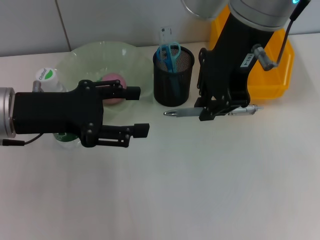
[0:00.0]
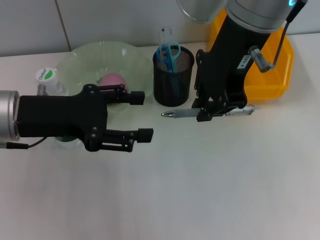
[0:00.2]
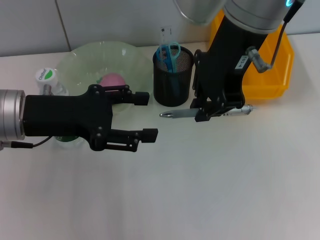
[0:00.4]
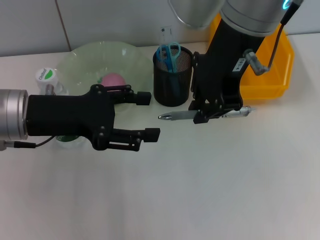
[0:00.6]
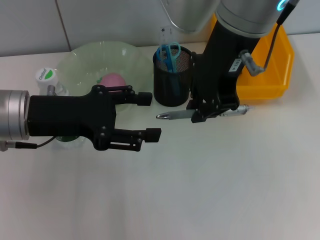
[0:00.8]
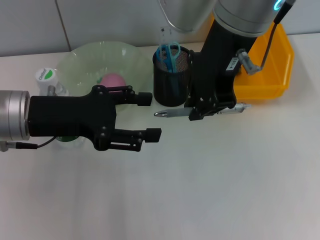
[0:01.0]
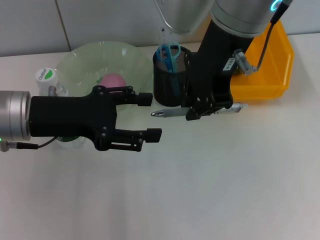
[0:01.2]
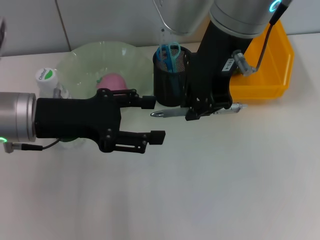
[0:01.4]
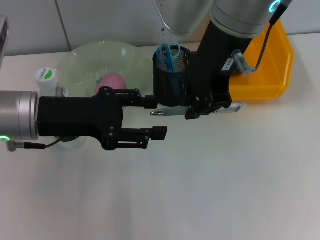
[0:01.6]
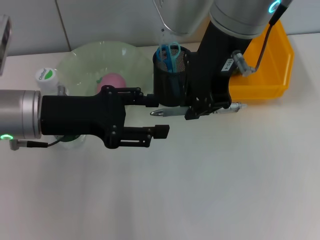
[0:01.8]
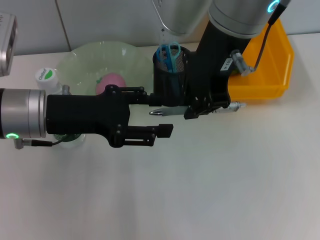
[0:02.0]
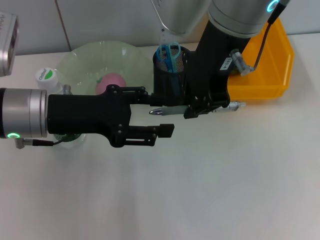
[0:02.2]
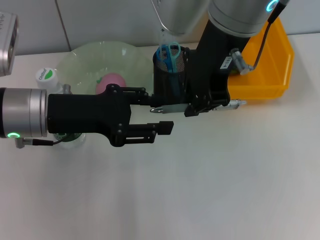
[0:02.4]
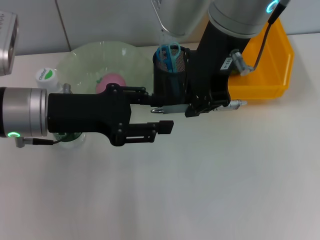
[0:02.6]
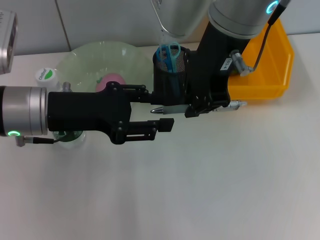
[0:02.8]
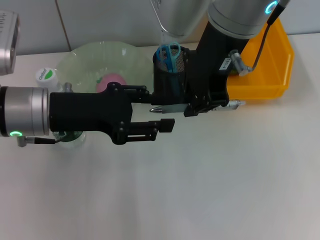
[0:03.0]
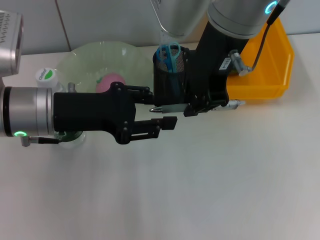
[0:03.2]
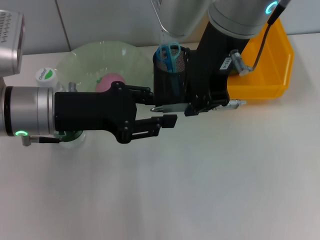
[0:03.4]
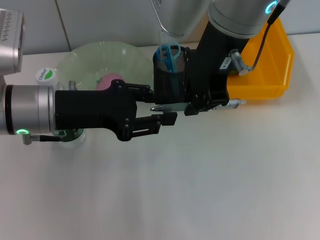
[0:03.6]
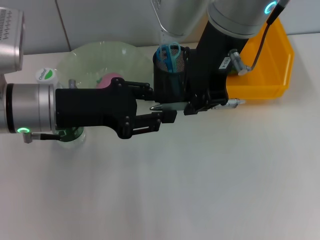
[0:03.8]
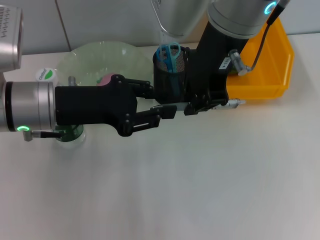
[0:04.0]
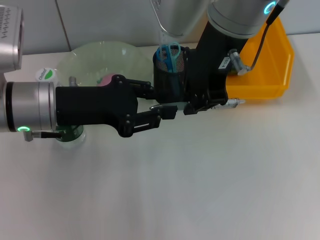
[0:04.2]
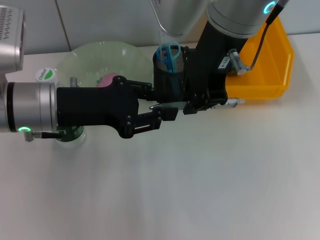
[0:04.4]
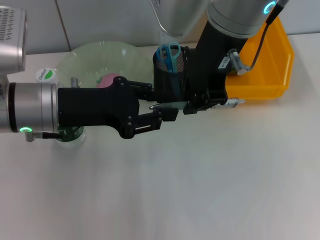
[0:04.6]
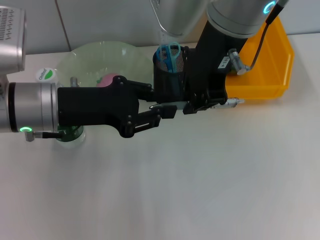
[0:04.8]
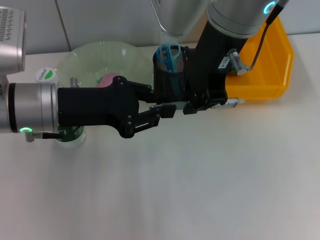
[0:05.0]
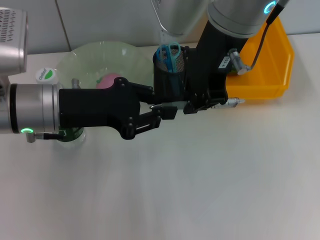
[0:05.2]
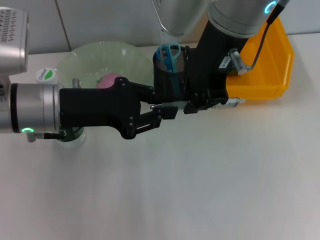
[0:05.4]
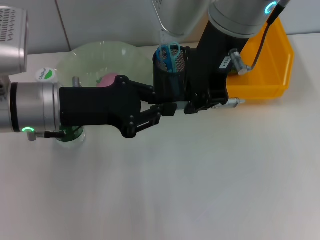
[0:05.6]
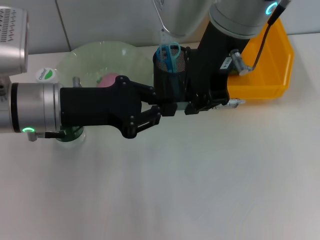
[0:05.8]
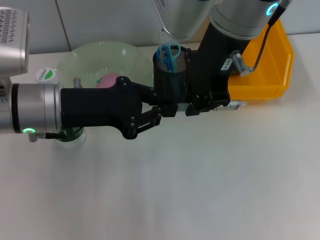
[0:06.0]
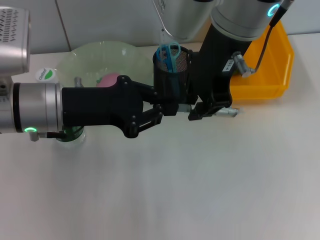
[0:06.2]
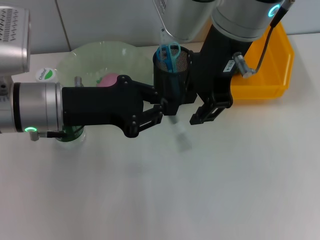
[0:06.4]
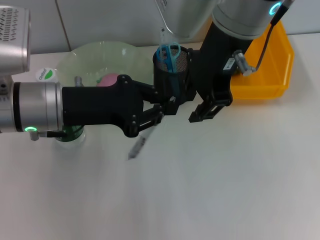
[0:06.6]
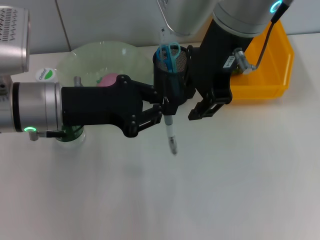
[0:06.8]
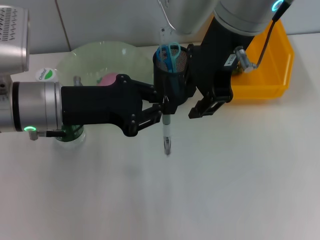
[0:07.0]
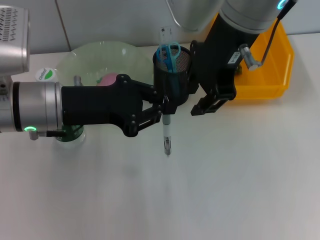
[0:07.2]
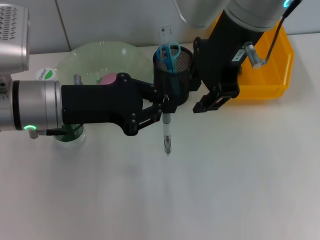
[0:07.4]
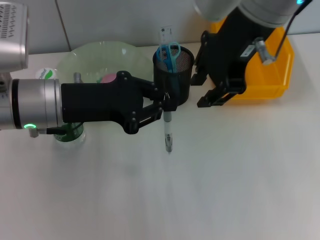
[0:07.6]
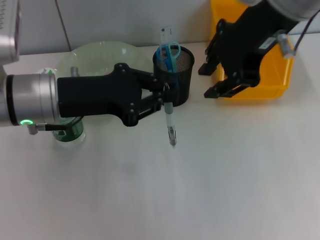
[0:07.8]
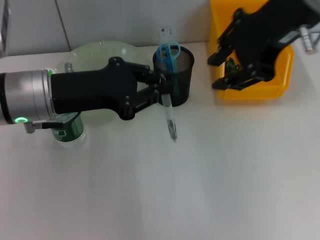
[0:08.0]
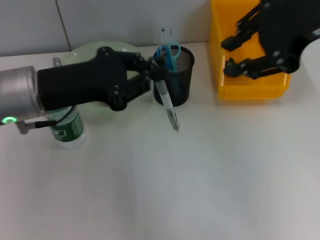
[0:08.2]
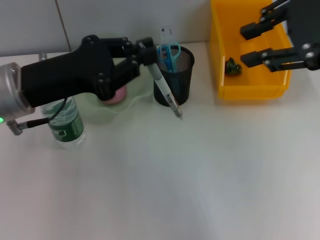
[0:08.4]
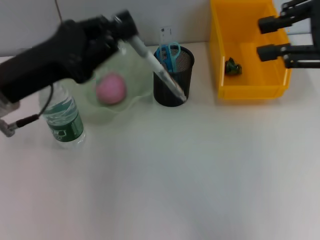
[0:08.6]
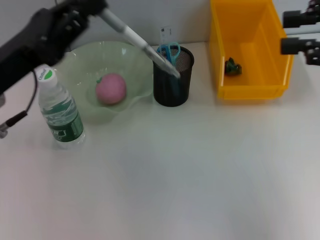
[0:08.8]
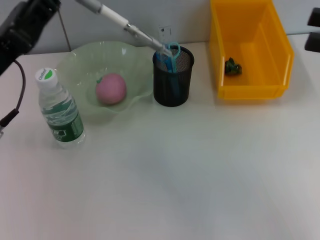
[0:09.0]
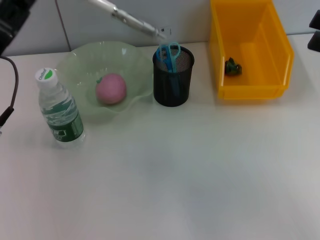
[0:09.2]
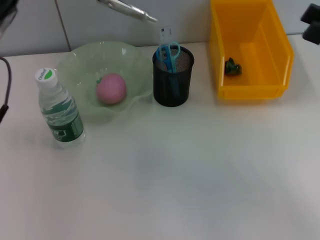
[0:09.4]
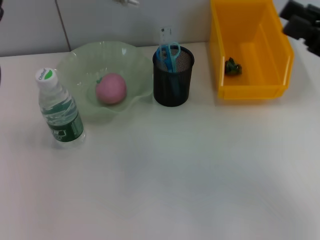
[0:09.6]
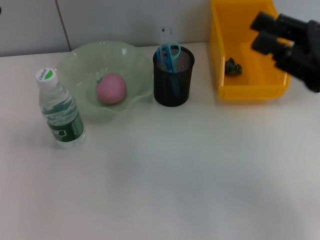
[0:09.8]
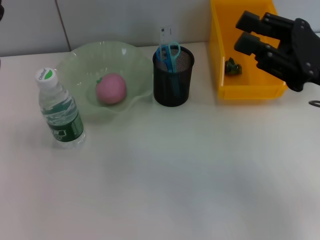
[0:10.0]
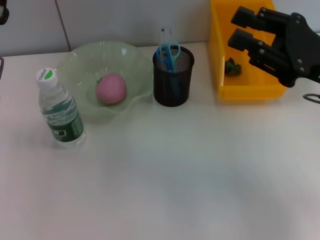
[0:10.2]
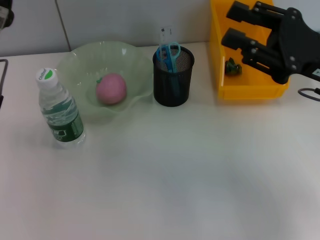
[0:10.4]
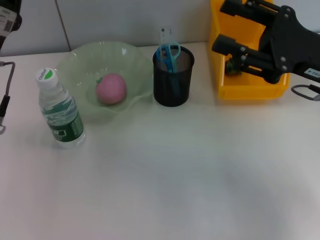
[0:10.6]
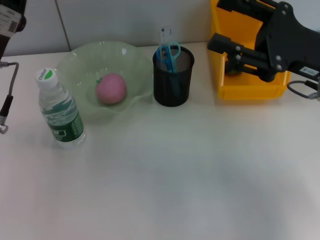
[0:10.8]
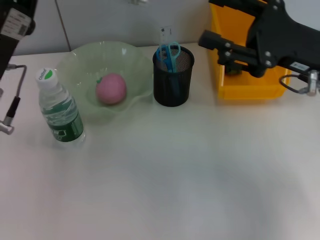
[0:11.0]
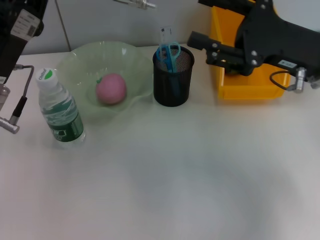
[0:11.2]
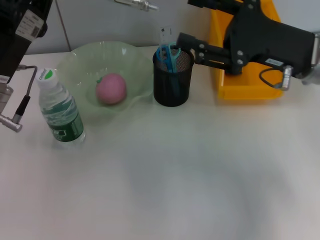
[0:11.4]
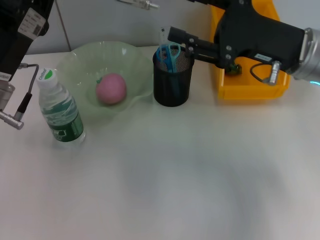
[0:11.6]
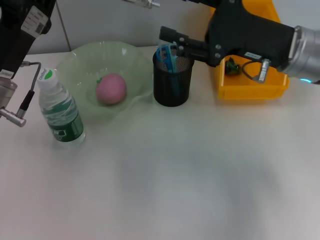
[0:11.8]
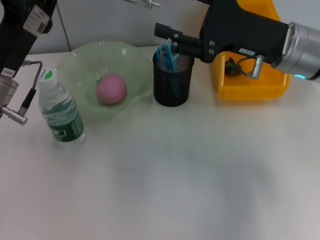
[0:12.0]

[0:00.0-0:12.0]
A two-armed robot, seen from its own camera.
Step, 0:00.0 to 0:06.6: Pass the gray spring-action pen from the right hand to the left hand.
0:00.0 to 0:01.6: The grippers move only a little.
0:01.6 to 0:03.0: Both grippers stay about where they are.
0:03.0 to 0:06.0: Both grippers stay about where they are.
0:06.0 to 0:07.6: The right gripper opens.
0:07.6 to 0:09.0: The right gripper goes approximately 25 cm to the right. The left gripper moves to the left, approximately 5 cm.
0:09.0 to 0:10.4: The right gripper is displaced to the left and downward by approximately 10 cm.
0:10.4 to 0:12.0: The right gripper goes approximately 10 cm to the left and forward.

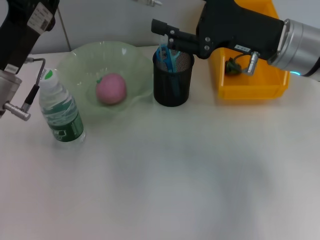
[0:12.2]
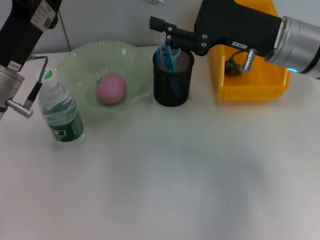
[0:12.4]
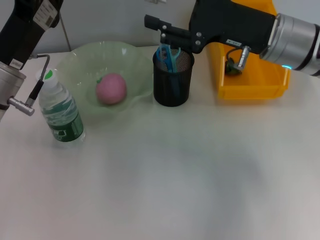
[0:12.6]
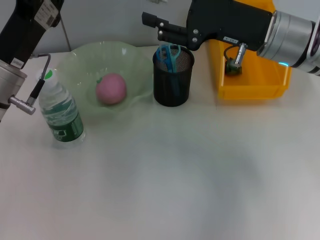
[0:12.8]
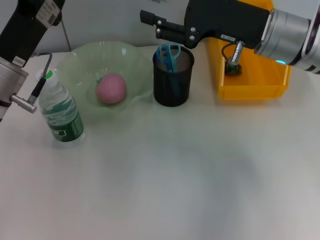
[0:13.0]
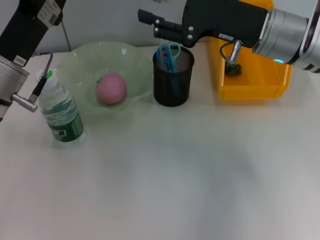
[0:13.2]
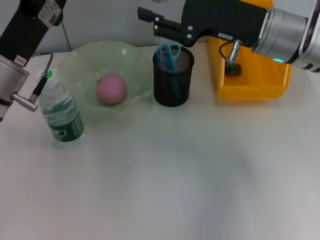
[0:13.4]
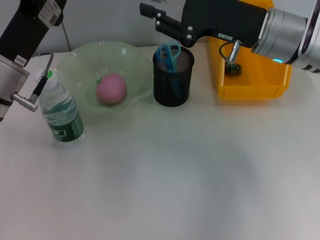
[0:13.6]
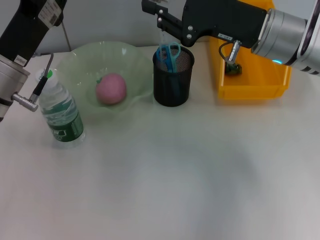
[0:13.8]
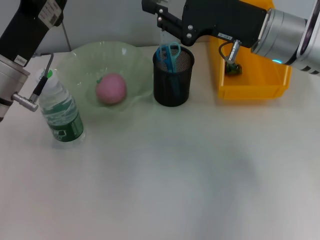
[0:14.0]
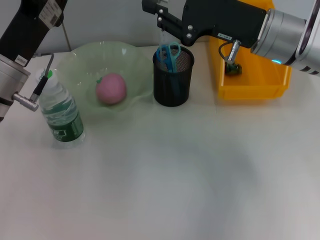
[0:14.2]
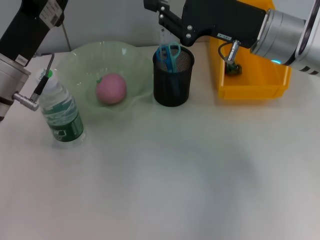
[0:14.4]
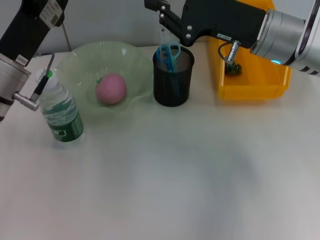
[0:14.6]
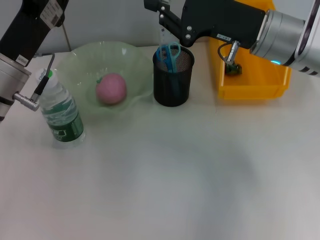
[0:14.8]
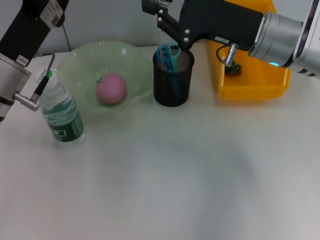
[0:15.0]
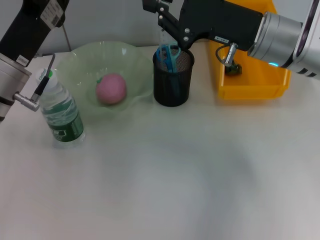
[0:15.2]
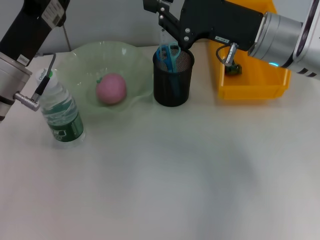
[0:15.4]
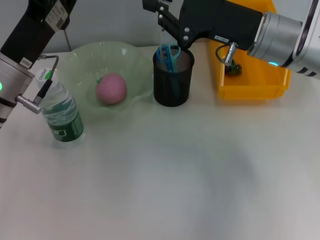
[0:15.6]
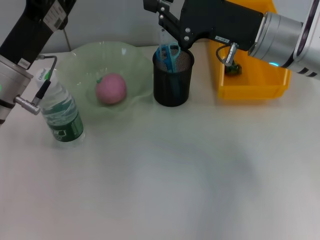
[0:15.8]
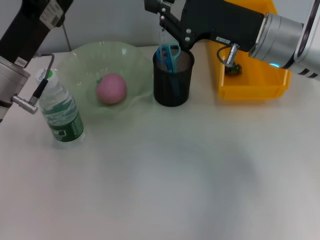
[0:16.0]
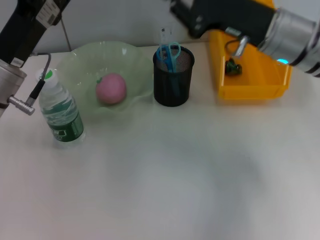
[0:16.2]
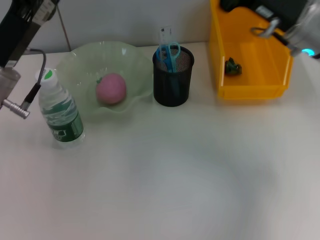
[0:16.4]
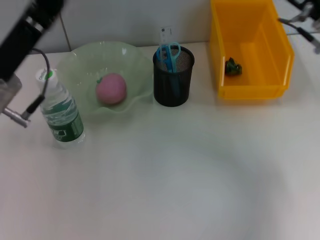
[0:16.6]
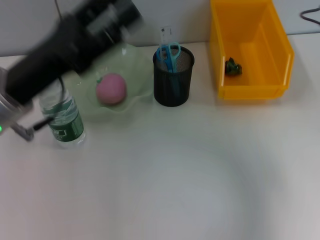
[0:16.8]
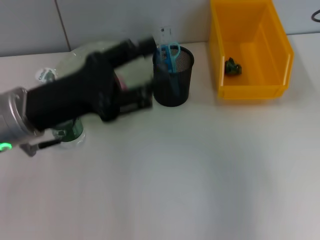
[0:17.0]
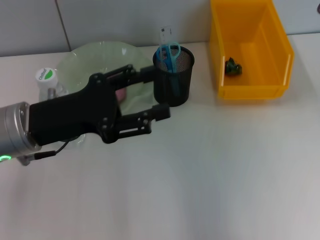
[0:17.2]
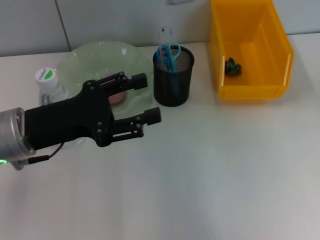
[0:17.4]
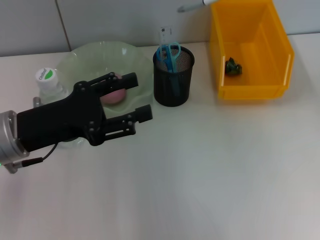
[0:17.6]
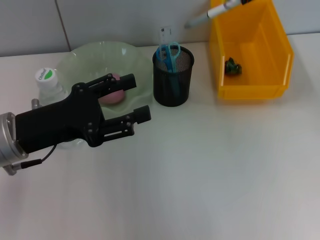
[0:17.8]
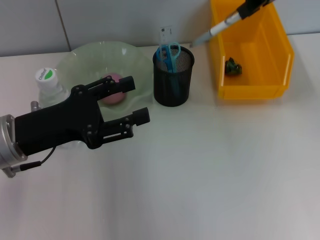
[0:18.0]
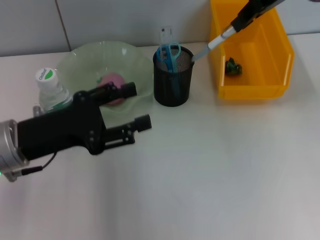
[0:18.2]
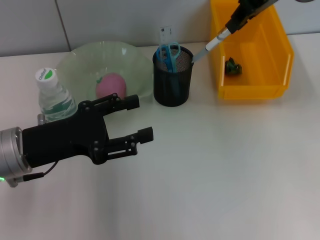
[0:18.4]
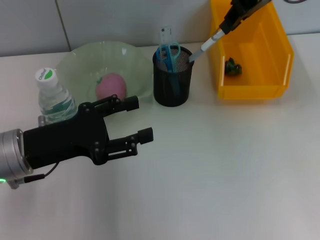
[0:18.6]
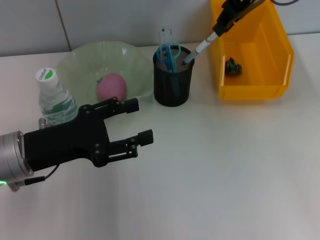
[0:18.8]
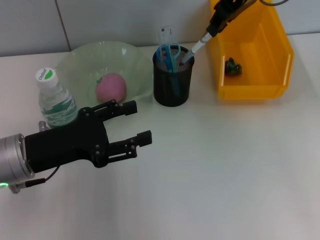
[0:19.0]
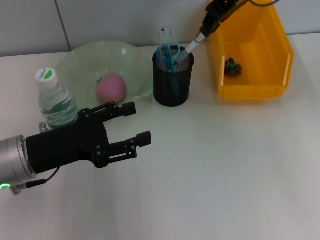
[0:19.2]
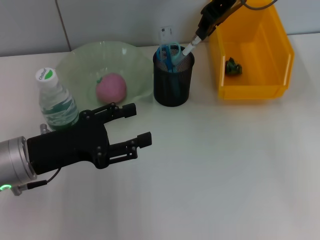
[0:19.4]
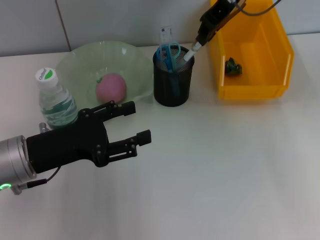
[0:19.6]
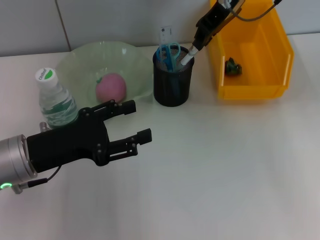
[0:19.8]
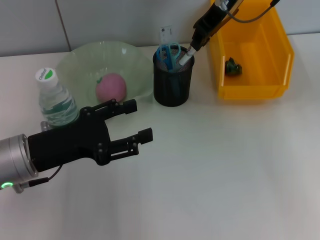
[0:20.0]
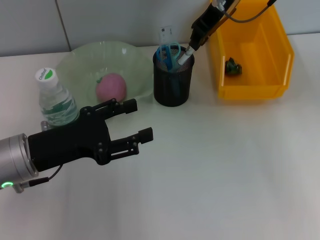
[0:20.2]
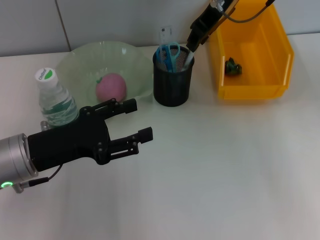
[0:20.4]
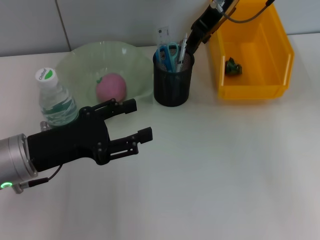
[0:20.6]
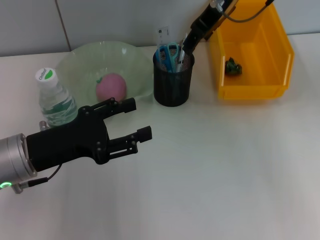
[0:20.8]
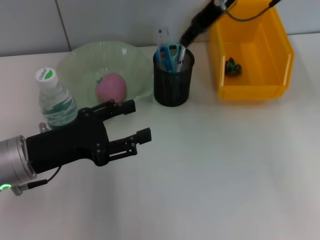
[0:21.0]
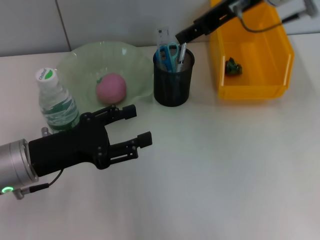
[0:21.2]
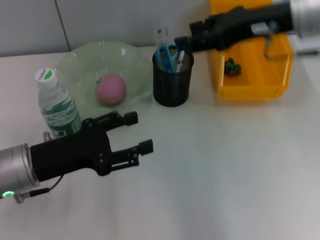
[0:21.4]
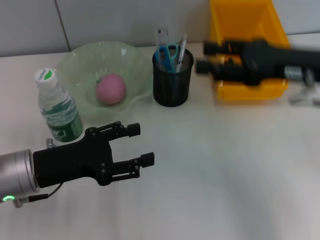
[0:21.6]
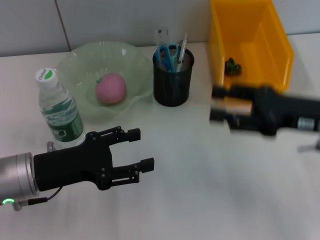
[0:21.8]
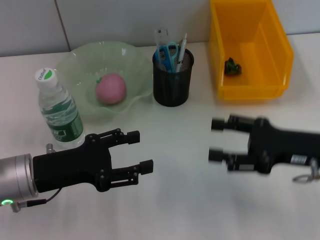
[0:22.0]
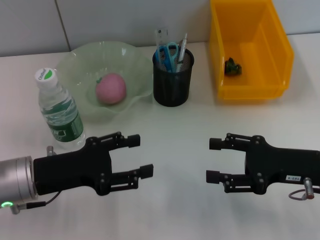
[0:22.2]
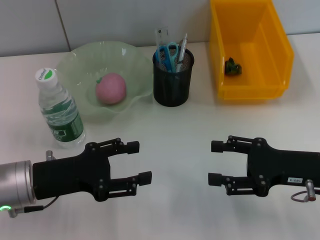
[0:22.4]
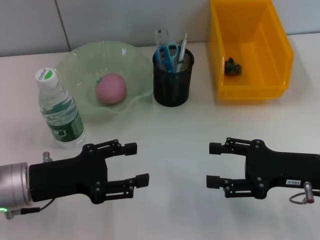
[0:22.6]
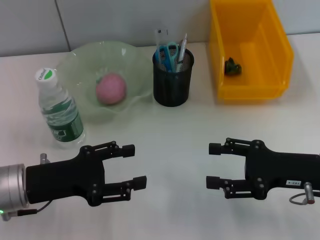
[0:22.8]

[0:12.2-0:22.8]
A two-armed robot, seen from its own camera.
Step, 0:12.2 to 0:16.2: Pass the gray spring-action pen from the left hand to the right hand.
Step, 0:16.4 to 0:20.4: Place the gray spring-action pen into the pen holder with the right hand.
0:12.2 to 0:13.8: The right gripper closes.
0:13.8 to 0:15.2: The right gripper closes up.
0:15.2 to 0:16.8: The right gripper travels to the right and upward by some 10 cm. The left gripper changes place by roughly 5 cm, and opens up.
0:16.8 to 0:18.2: The right gripper goes about 15 cm upward, forward and to the left.
0:18.2 to 0:19.8: The right gripper shifts about 5 cm to the left.
0:19.8 to 0:21.2: The right gripper goes about 5 cm backward, and opens.
0:21.2 to 0:22.8: The right gripper is displaced downward, backward and to the right by roughly 30 cm.
